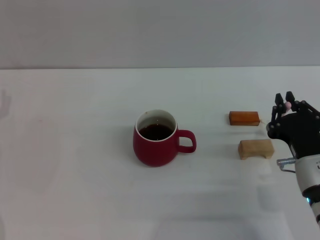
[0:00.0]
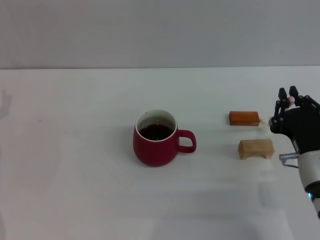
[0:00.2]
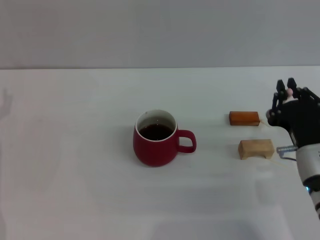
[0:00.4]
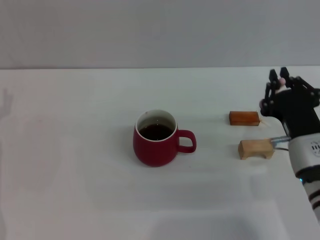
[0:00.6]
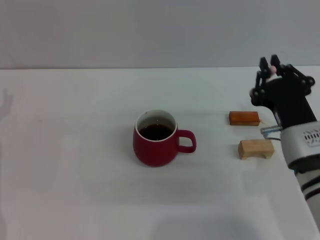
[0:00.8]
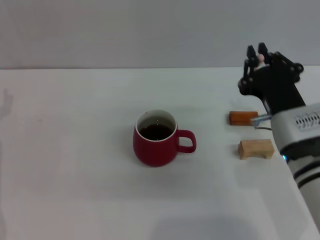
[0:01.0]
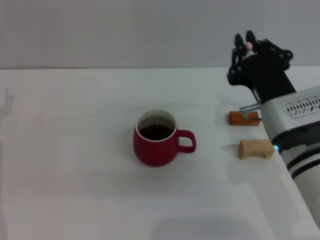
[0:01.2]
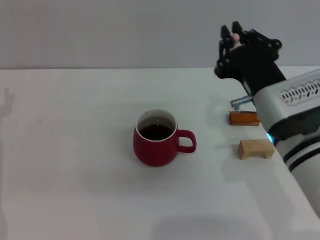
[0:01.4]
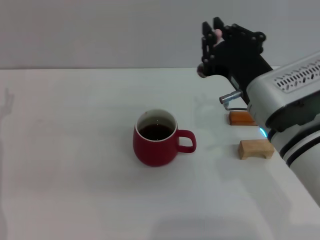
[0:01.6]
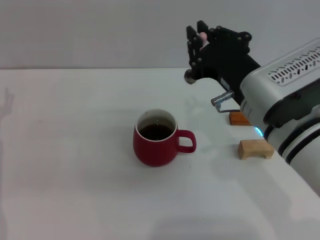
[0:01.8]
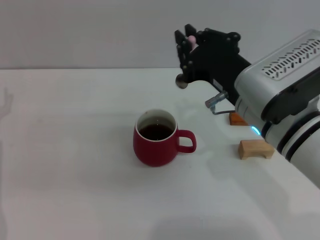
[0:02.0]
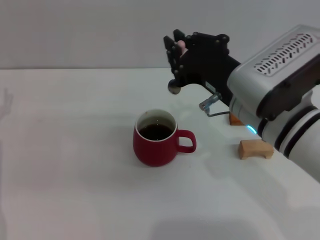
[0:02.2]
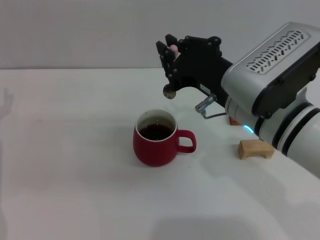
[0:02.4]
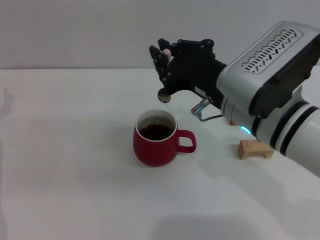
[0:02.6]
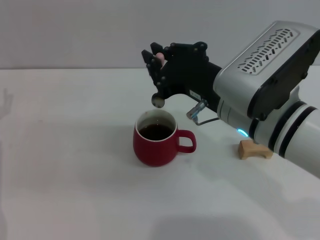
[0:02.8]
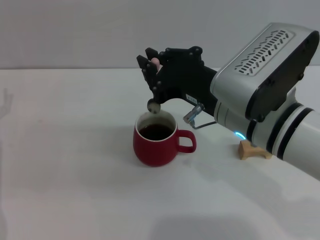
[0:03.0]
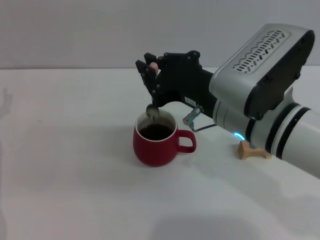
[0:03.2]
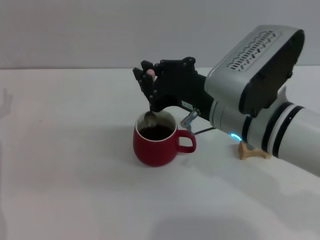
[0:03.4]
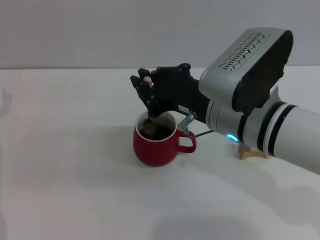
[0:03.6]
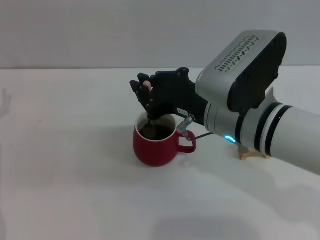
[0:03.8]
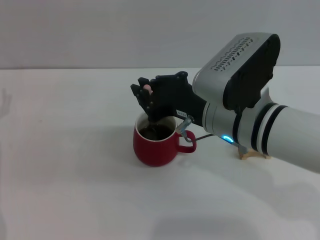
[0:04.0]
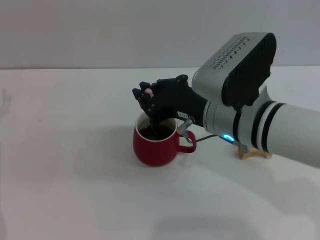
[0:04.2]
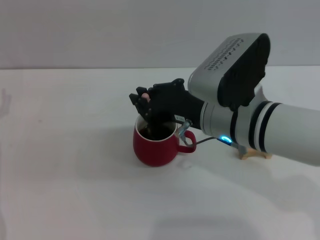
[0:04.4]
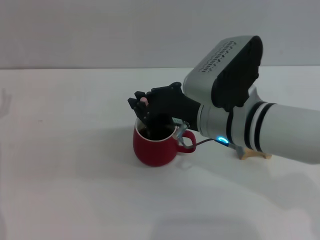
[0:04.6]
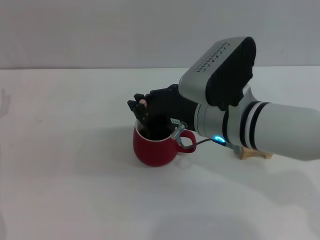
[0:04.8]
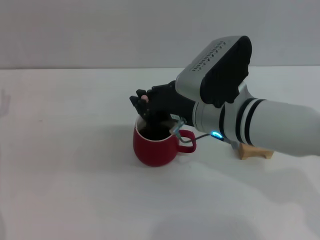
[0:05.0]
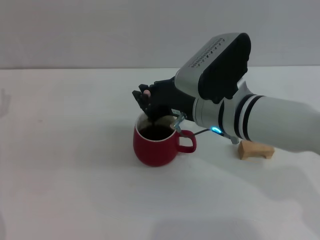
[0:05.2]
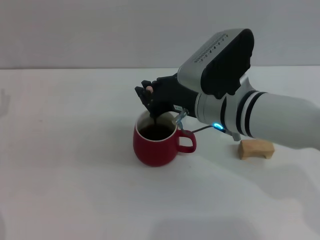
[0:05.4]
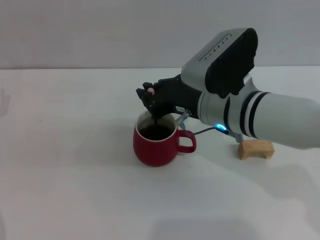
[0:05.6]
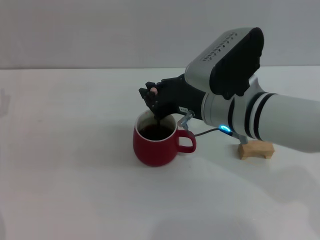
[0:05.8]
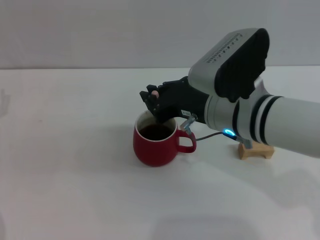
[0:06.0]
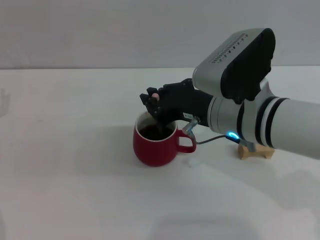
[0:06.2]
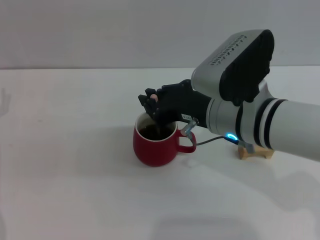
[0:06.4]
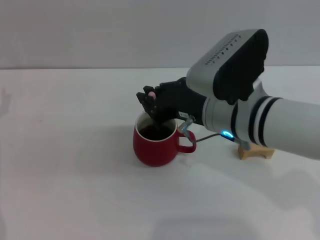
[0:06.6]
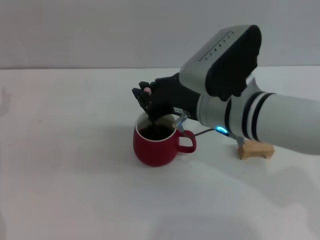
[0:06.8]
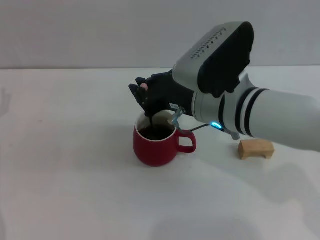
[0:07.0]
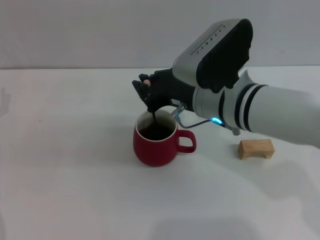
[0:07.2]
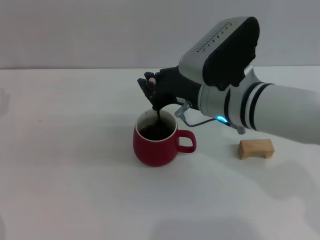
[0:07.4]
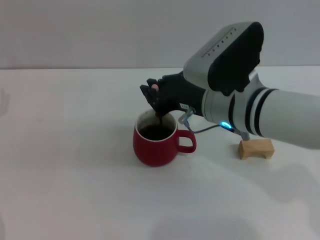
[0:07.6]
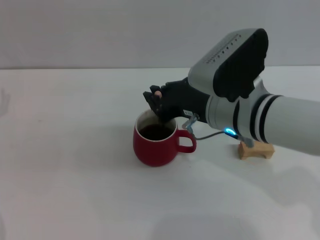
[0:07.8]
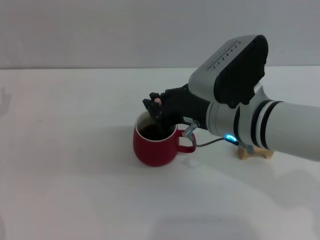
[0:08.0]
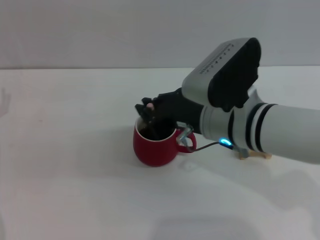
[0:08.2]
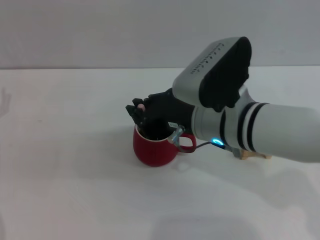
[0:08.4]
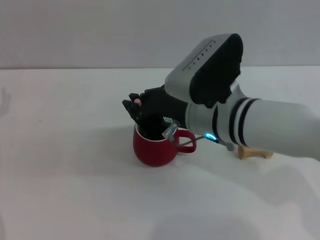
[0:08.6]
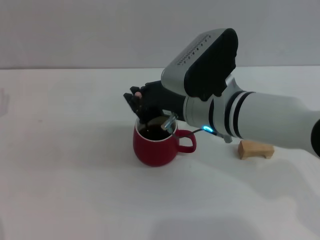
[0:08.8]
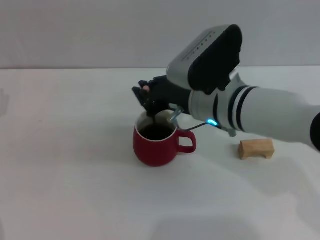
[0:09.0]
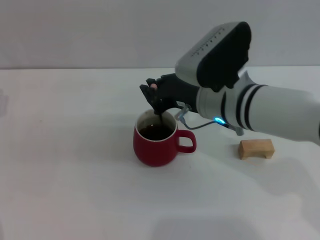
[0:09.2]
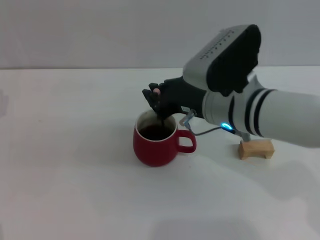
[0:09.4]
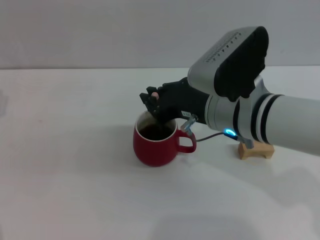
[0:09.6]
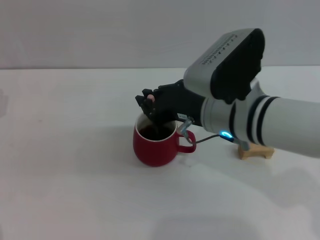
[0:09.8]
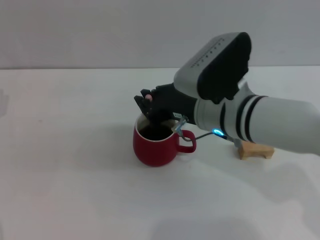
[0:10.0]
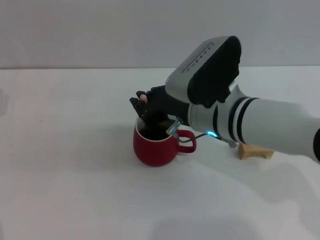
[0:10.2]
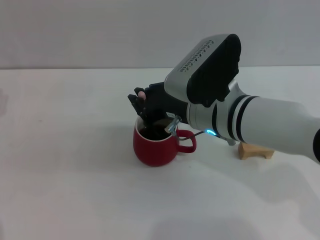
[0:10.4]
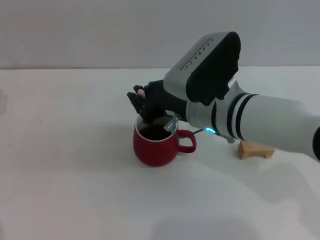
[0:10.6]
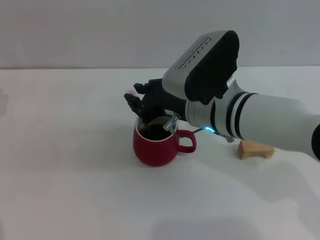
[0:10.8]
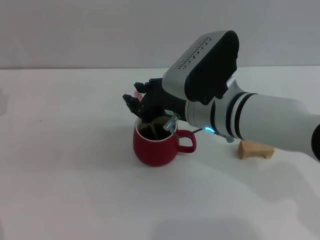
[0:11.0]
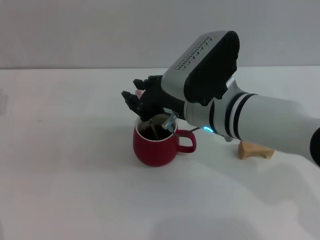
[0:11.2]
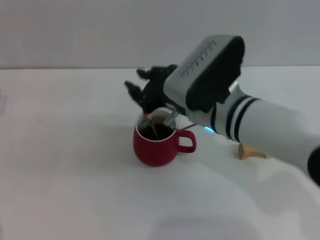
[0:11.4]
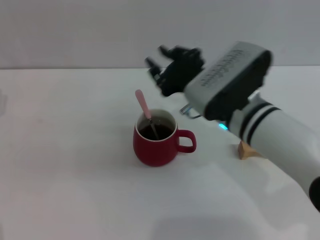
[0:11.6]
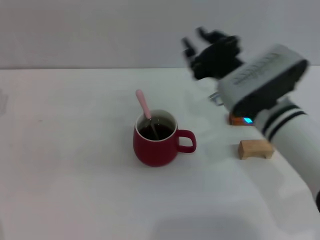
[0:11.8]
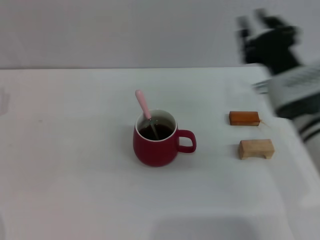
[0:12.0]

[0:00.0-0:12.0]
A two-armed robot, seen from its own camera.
Task of the whole recording: Move the red cup to the center, lift the pink spoon, stir it three times in the cup, and put the spoon into the cup.
Step, 0:00.4 to 0:11.6: Stir the coffee in the cup with the right gripper.
0:00.0 to 0:01.6: The right gripper heads upward and to the left, covering roughly 15 cm.
0:03.0 to 0:04.4: The grippers stay close to where they were, moving slightly.
0:04.4 to 0:10.4: The grippers stay close to where they were, moving slightly.
0:10.4 to 0:12.0: The right gripper heads to the right, covering roughly 10 cm, and opens.

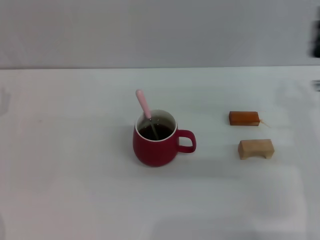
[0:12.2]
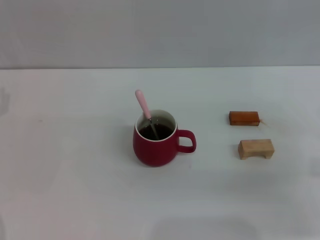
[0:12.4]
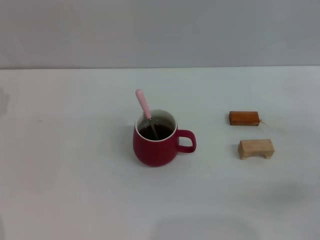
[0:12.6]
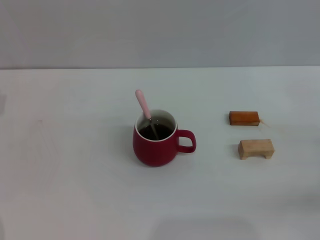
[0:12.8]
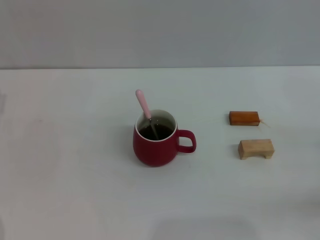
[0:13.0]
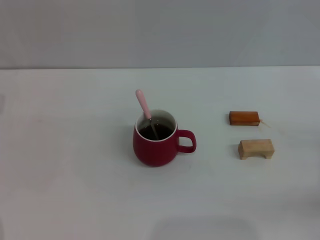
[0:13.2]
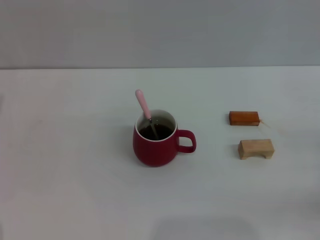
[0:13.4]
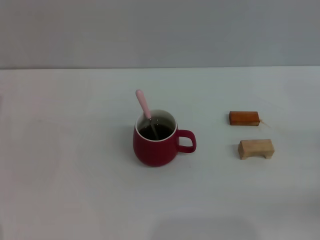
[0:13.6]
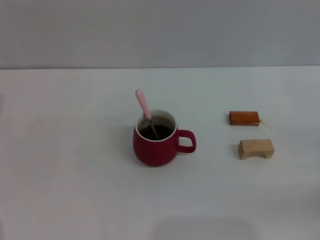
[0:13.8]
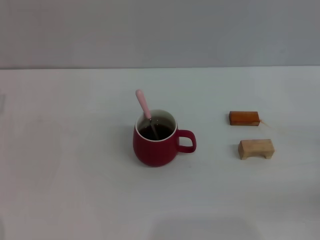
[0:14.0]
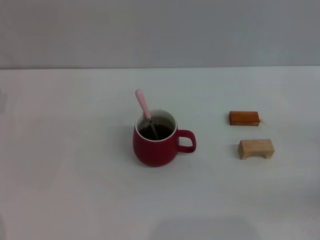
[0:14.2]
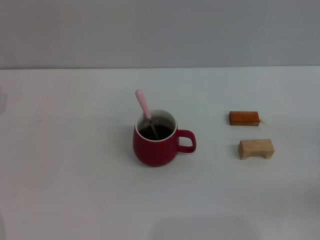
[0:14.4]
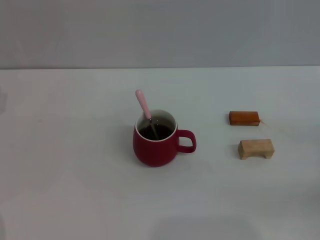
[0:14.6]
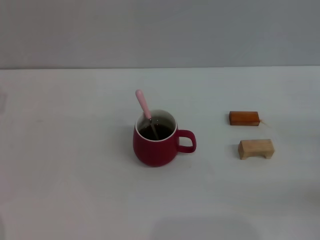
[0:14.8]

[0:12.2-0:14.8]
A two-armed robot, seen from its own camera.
Task of the whole recording: Move the red cup to the center, lift the pink spoon, stir it three times in the cup, and put the spoon into the cup.
0:12.2 to 0:13.4: The right gripper shifts some 15 cm to the right and backward.
